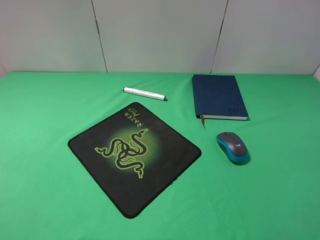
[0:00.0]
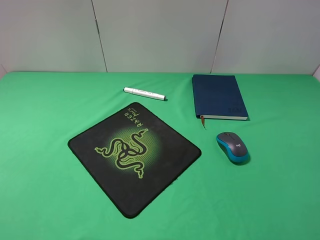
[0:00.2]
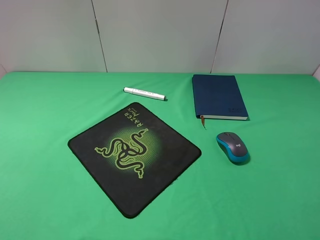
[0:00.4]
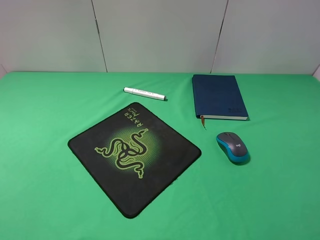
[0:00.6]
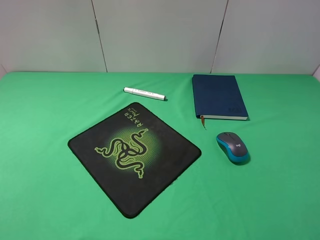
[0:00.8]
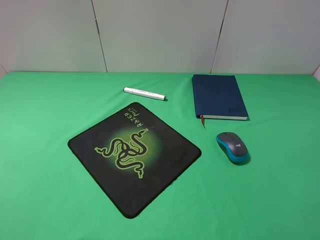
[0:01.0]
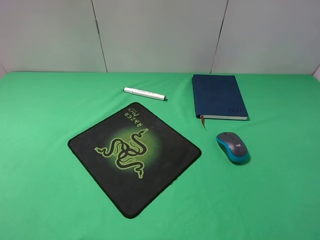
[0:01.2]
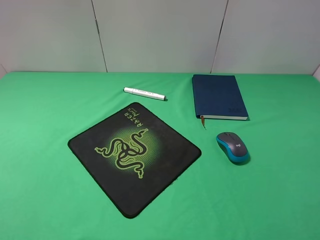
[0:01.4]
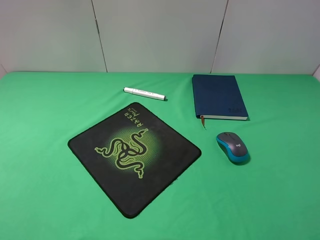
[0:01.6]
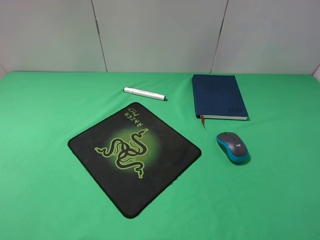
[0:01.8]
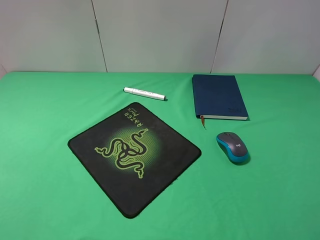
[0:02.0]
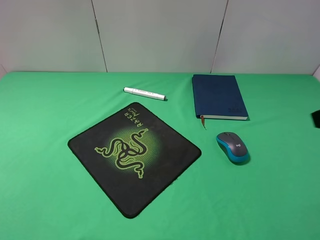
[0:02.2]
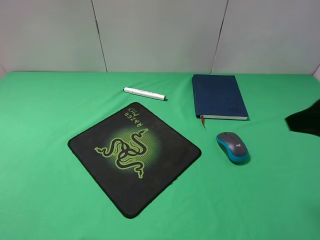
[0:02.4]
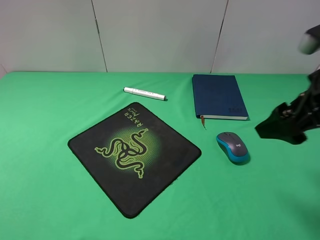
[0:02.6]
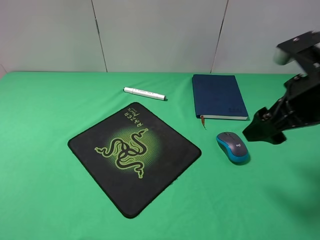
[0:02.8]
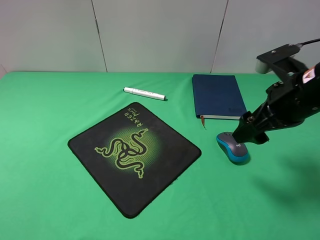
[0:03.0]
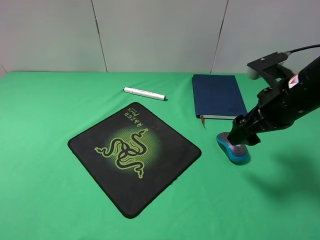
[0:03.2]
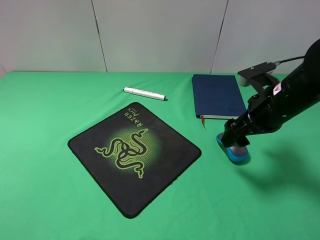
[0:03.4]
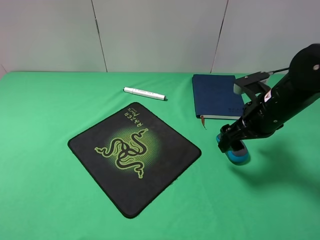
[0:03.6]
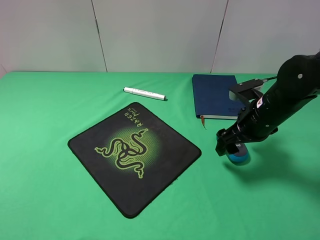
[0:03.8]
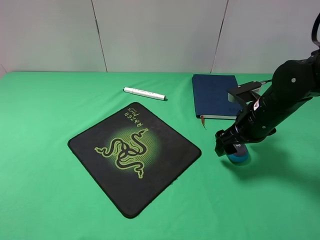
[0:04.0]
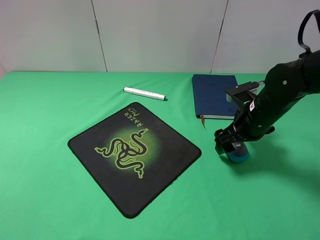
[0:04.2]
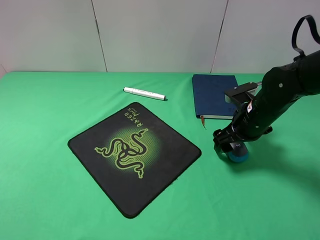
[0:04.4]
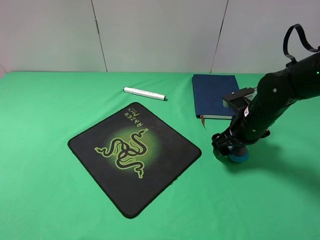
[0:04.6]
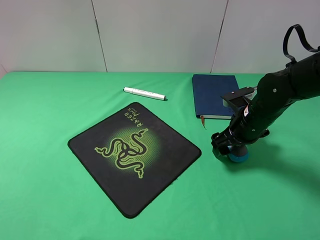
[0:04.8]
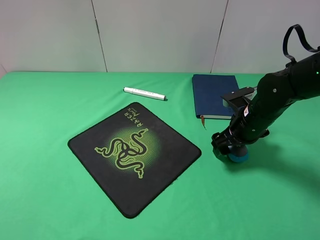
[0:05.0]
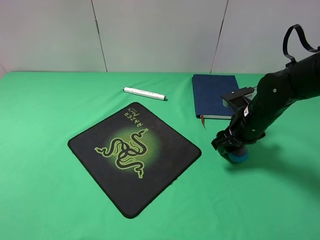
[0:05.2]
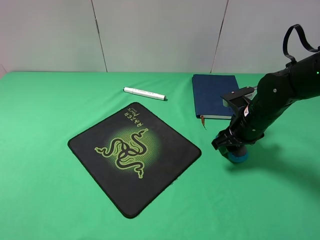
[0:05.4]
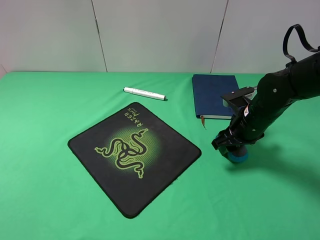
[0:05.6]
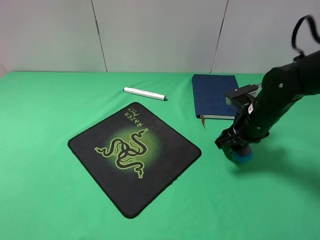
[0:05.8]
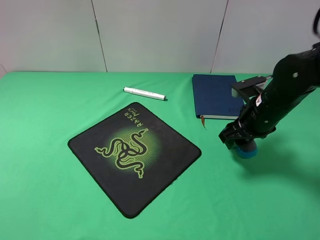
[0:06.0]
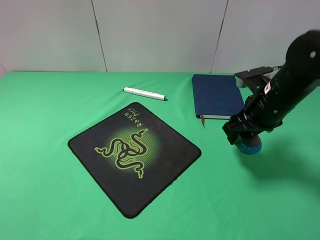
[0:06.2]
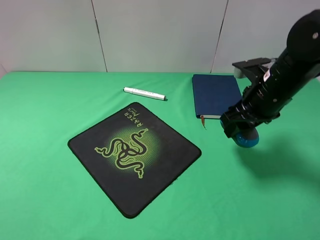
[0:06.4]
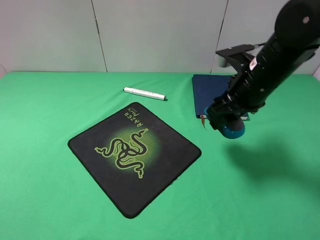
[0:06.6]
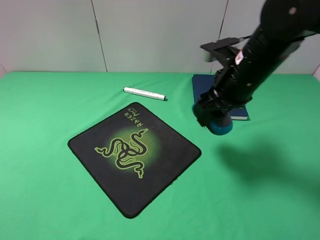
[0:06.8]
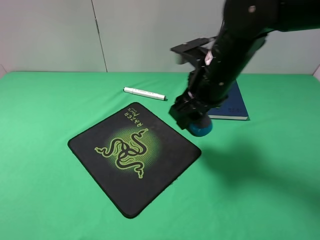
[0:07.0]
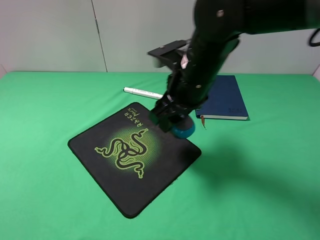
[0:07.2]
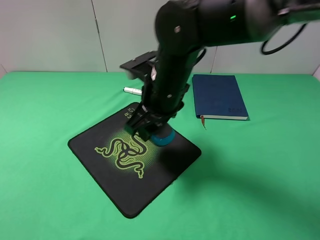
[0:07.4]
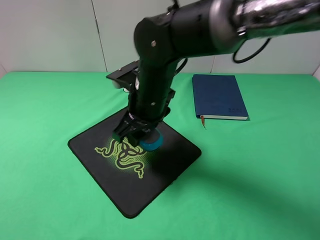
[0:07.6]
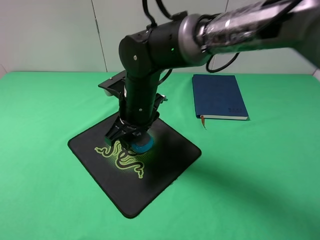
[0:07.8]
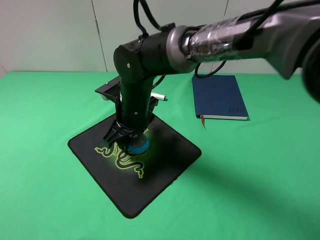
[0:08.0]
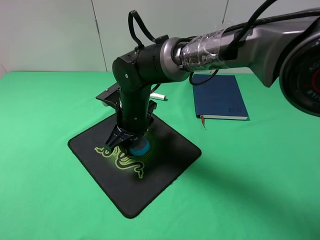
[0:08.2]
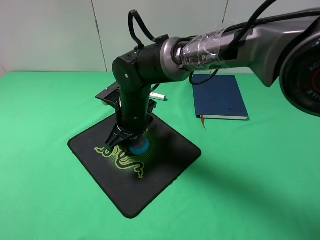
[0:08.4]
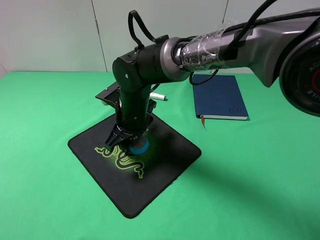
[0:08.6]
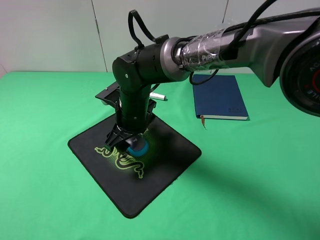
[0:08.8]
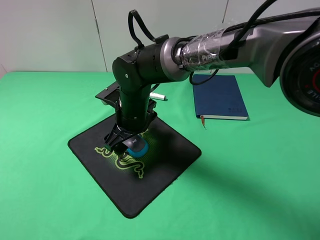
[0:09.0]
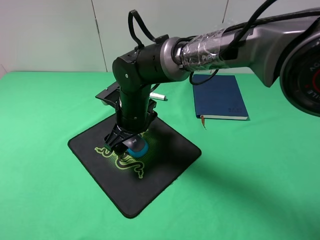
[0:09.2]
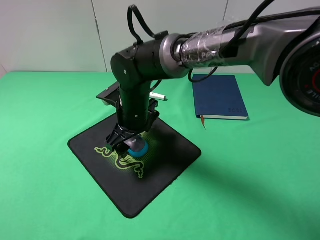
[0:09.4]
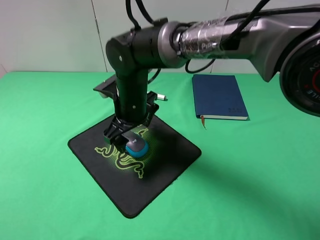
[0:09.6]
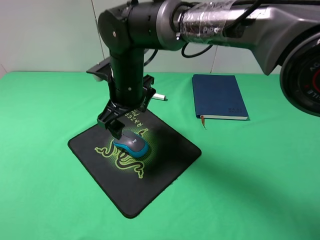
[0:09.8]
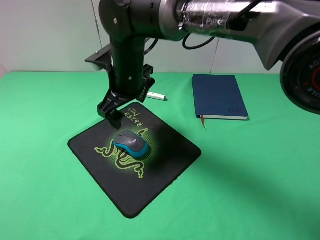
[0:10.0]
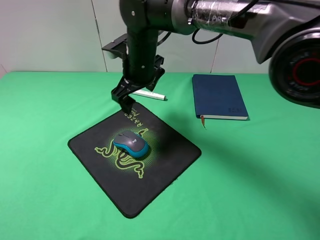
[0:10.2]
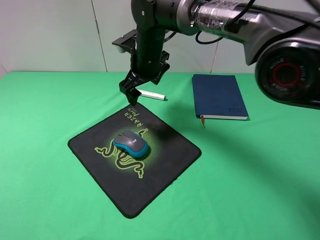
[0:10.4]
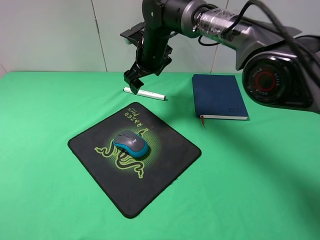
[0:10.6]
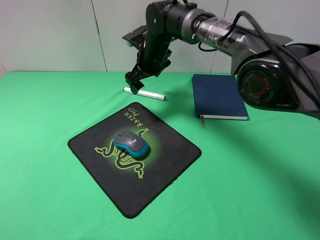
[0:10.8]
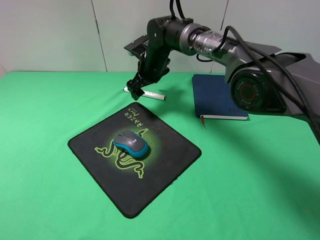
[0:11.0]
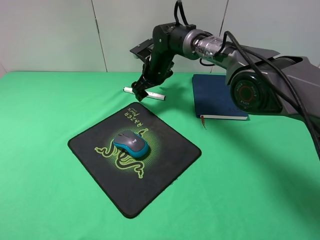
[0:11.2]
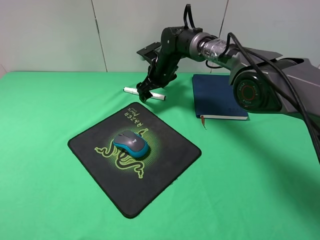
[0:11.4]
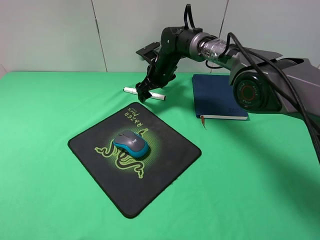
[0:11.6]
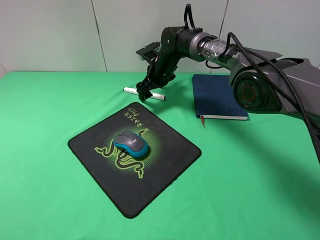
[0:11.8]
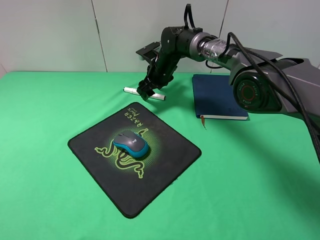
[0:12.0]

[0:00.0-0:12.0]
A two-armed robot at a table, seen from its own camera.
Step, 0:00.0 to 0:05.4: Grasp the mouse with the right gripper.
Step, 0:05.6 to 0:09.2: Place the mouse on the mouse pad with the right gripper.
0:01.6 to 0:03.0: The right gripper shifts some 20 cm forward and to the left.
0:03.0 to 0:04.4: The right gripper heads downward and forward, covering about 10 cm.
0:04.4 to 0:06.0: The right gripper closes its fingers.
0:06.0 to 0:07.6: The right gripper shifts approximately 25 cm to the left.
0:07.6 to 0:09.0: The right gripper travels downward by approximately 5 cm, and opens up.
0:09.0 to 0:10.4: The right gripper travels forward and upward by about 15 cm.
0:10.4 to 0:12.0: The right gripper shifts roughly 10 cm forward and downward, and closes up.

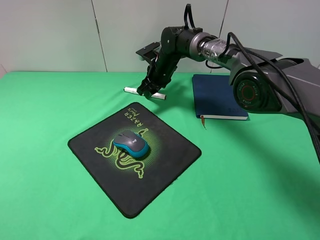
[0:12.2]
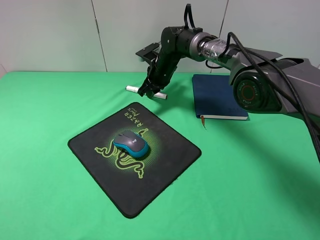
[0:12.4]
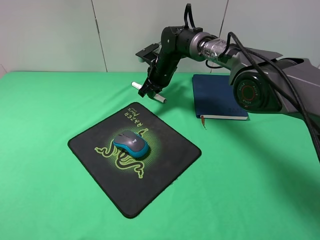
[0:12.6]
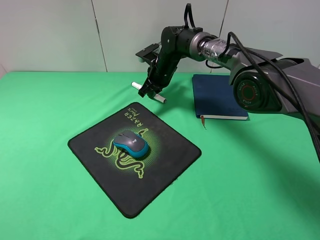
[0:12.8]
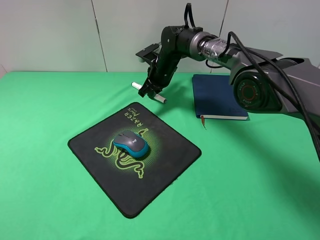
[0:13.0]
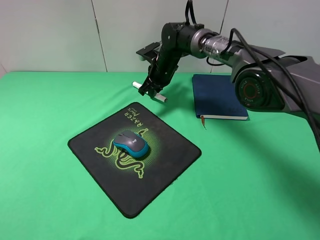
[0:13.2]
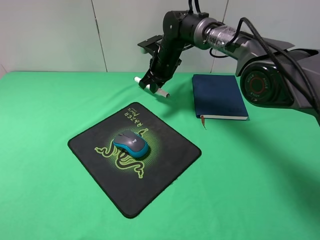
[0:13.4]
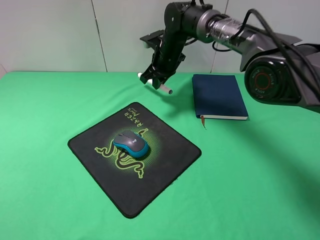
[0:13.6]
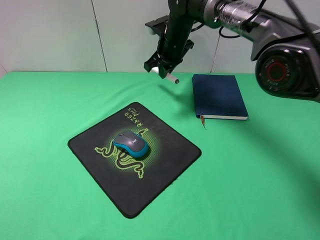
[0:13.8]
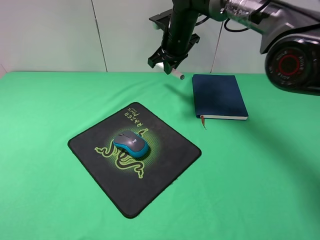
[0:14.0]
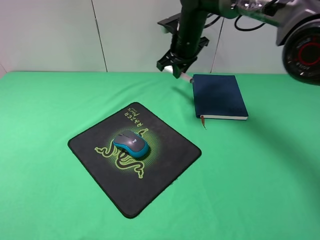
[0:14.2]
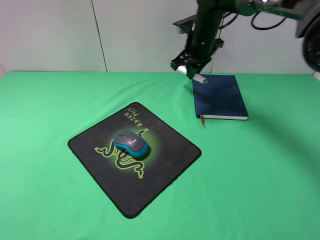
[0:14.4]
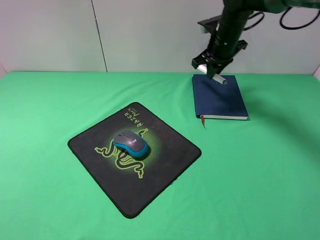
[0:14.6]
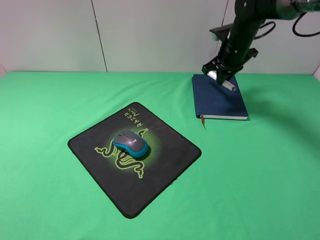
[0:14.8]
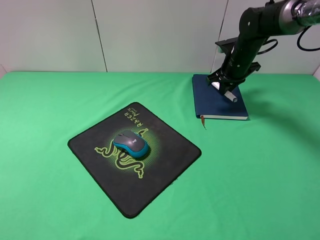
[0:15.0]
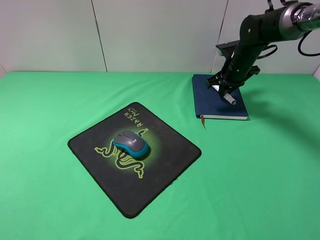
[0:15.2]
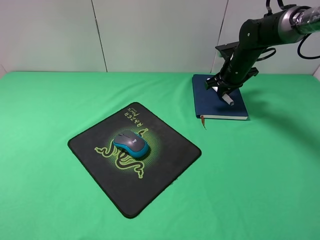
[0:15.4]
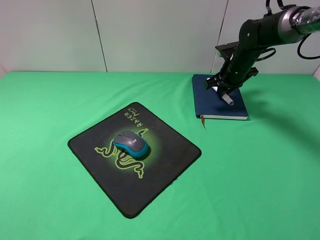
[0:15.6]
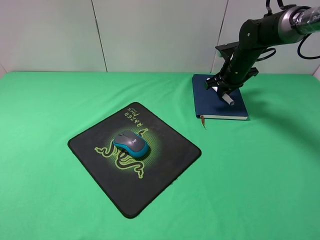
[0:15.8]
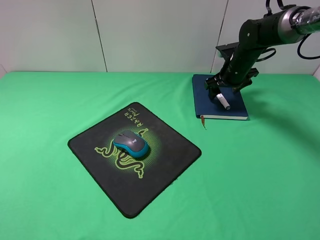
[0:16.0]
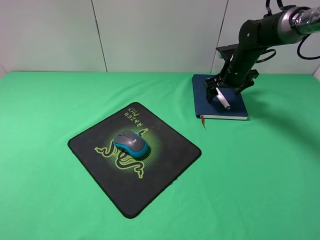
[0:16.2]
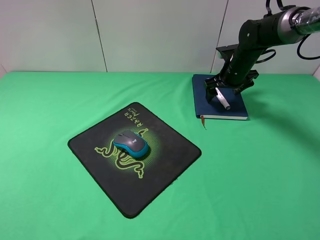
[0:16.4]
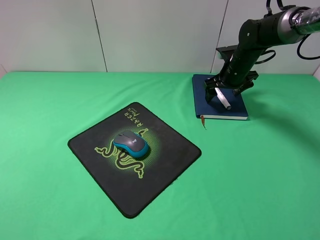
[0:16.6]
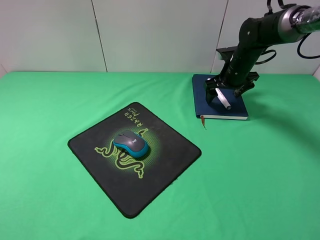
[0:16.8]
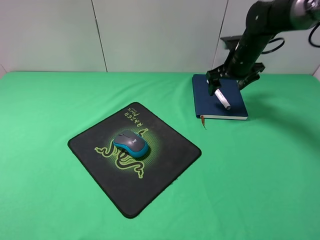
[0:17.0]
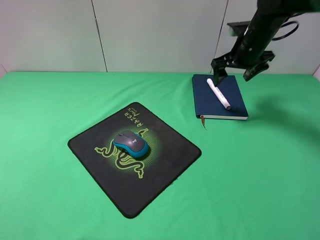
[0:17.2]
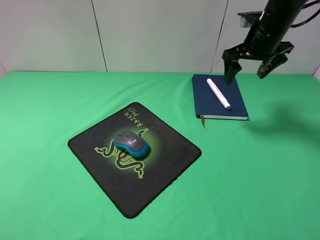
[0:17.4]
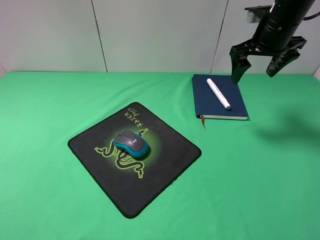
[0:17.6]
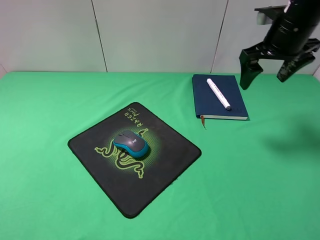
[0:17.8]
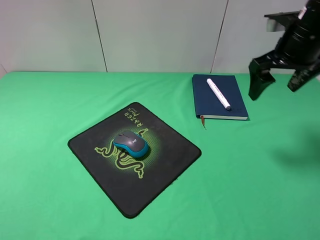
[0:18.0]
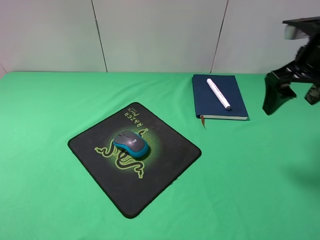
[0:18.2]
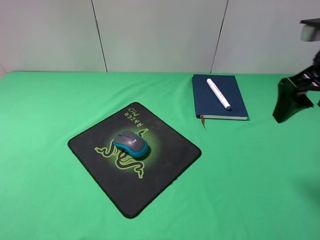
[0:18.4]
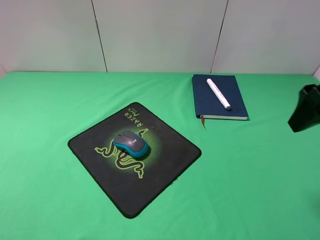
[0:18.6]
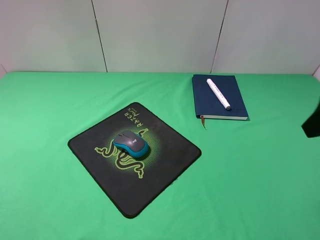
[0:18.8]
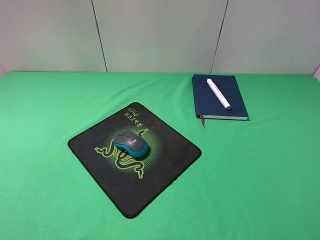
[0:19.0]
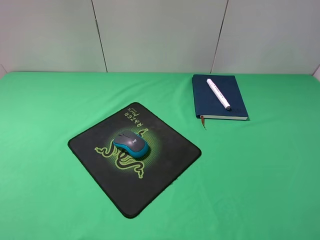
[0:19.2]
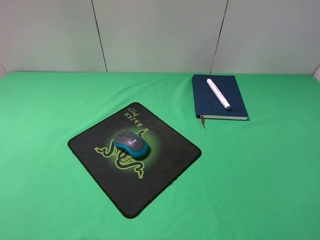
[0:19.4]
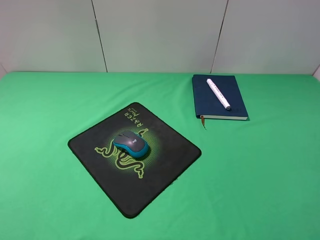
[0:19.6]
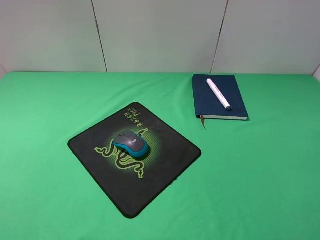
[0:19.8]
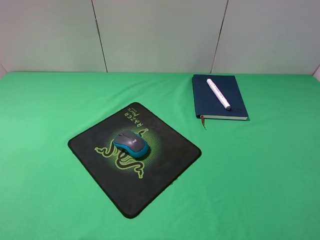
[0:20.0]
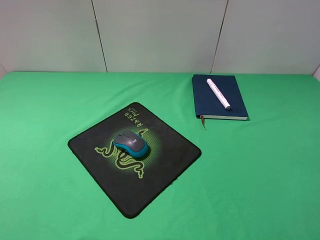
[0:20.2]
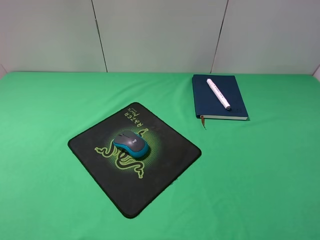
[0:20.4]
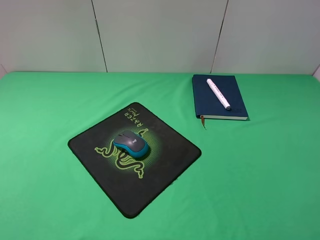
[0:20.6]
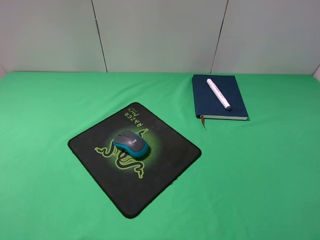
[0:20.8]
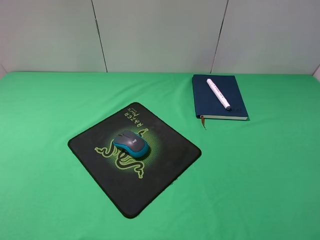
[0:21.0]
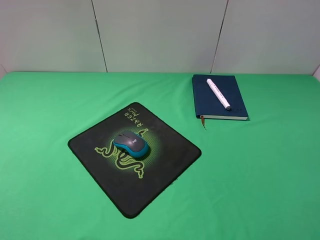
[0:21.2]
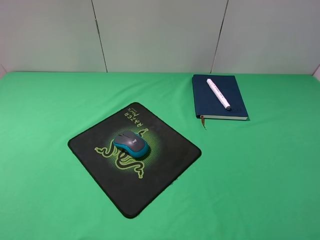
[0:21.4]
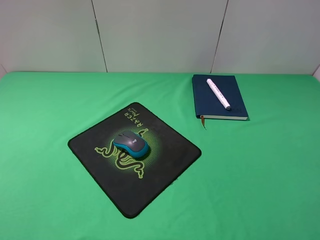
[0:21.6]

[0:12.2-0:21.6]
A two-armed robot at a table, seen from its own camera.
Step, 0:12.6 to 0:16.4: Place the marker on the notebook with the right gripper.
0:12.2 to 0:13.8: The right gripper shifts about 10 cm upward, and closes its fingers.
0:13.8 to 0:15.4: The right gripper is displaced to the right by approximately 15 cm.
0:15.4 to 0:17.0: The right gripper opens up.
0:17.0 to 0:18.4: The right gripper moves backward and upward, approximately 25 cm.
0:18.4 to 0:20.0: The right gripper moves backward, roughly 25 cm.
0:20.0 to 0:21.6: The two grippers keep their place.

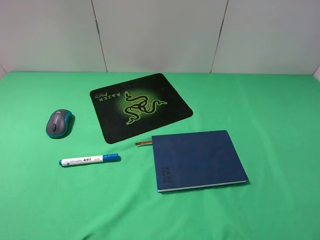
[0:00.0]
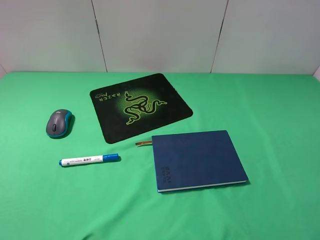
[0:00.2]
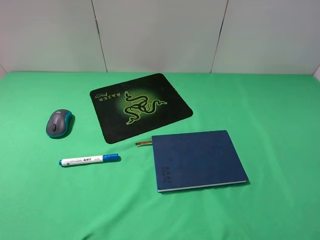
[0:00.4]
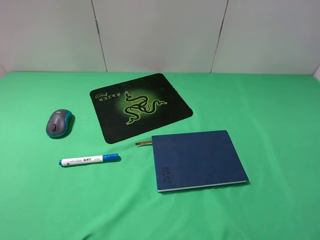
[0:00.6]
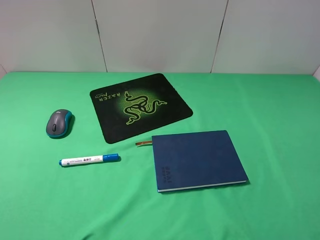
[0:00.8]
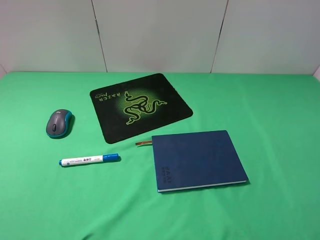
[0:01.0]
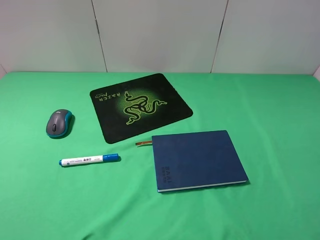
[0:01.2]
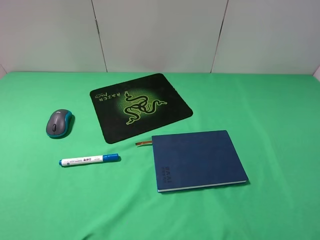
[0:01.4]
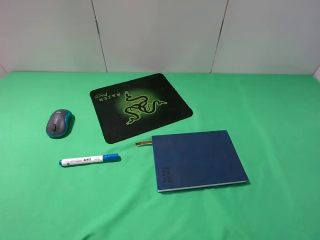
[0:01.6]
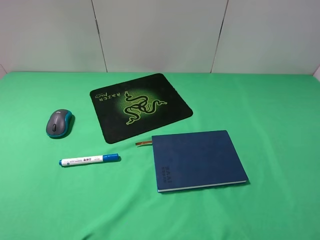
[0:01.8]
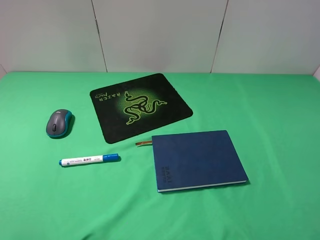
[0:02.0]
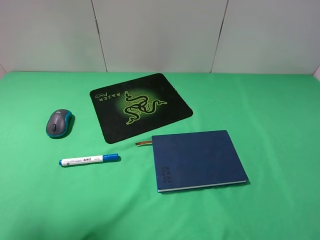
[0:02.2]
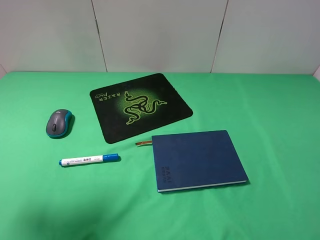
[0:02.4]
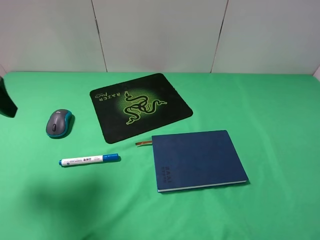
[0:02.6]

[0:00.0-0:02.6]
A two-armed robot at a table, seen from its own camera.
0:00.0 to 0:01.2: The two grippers keep their place.
0:01.2 to 0:02.6: The left gripper heads forward, covering about 20 cm.
